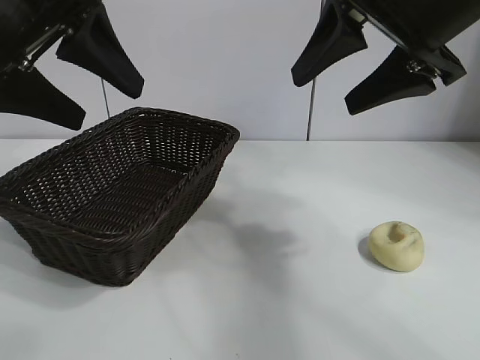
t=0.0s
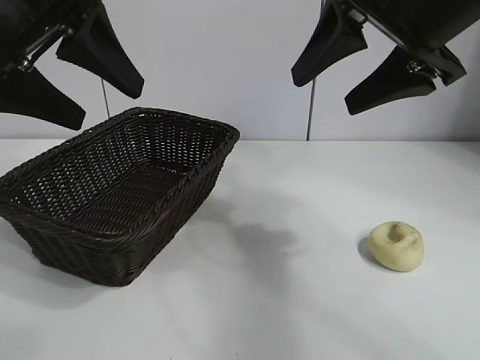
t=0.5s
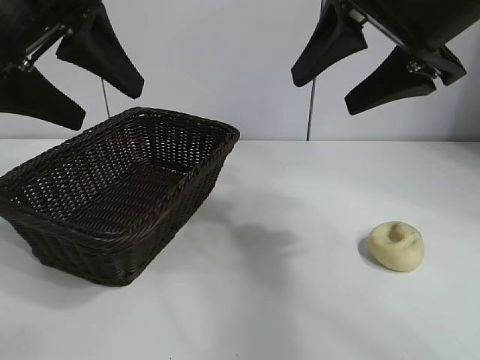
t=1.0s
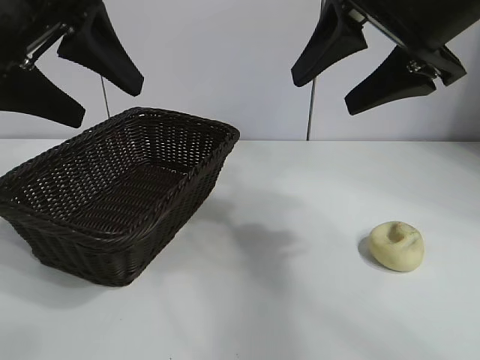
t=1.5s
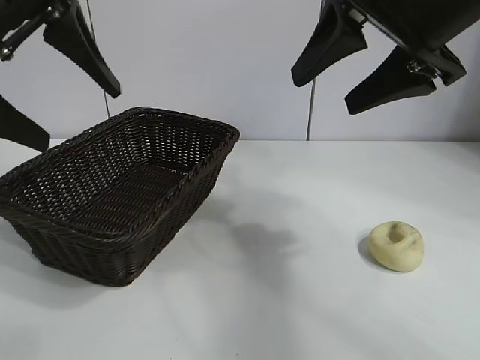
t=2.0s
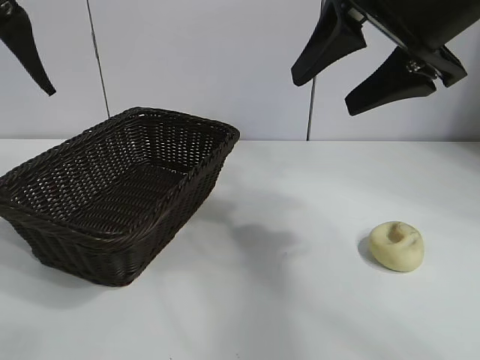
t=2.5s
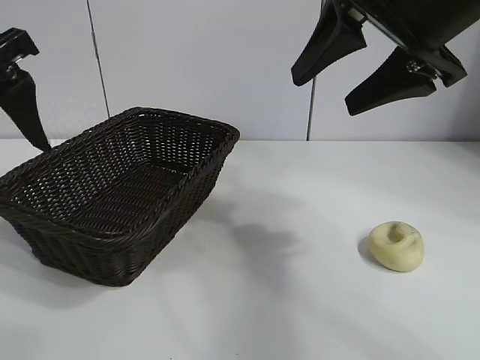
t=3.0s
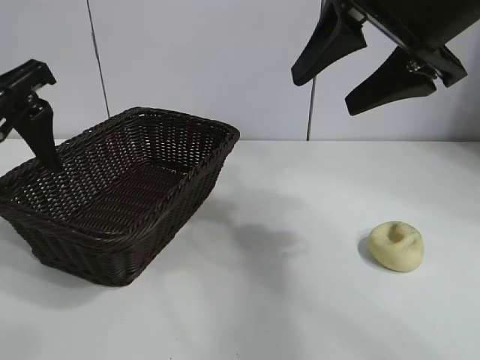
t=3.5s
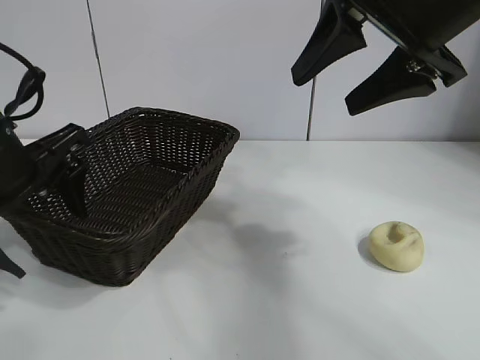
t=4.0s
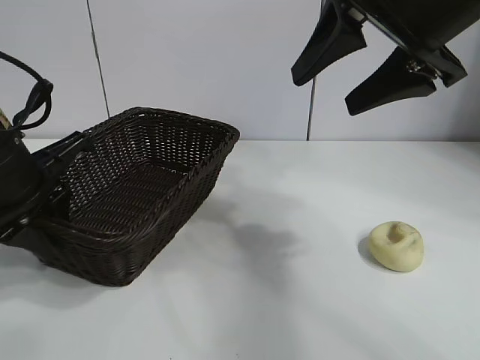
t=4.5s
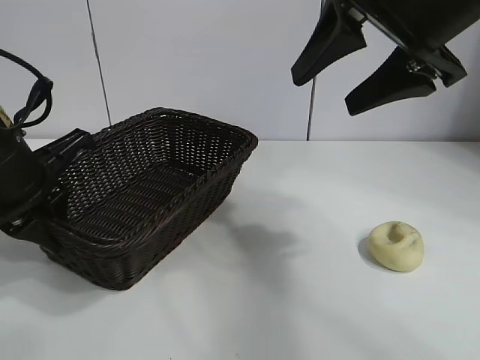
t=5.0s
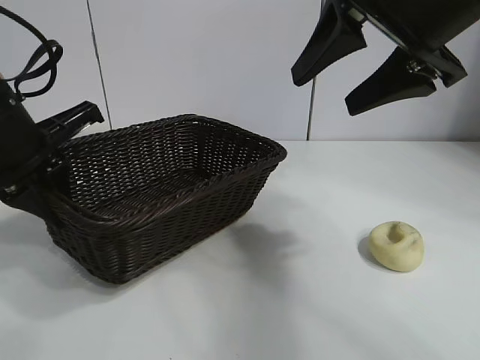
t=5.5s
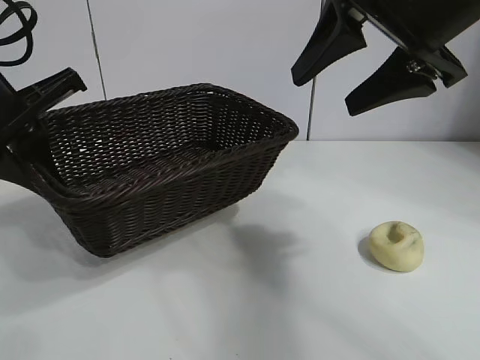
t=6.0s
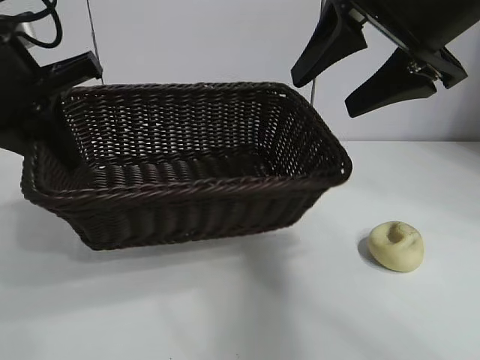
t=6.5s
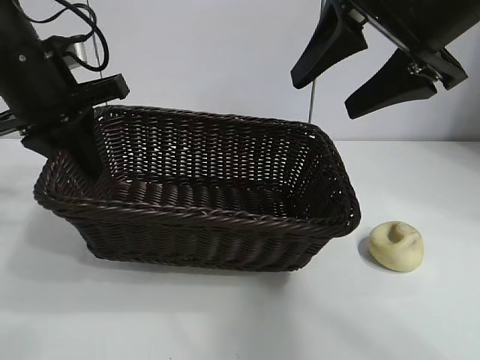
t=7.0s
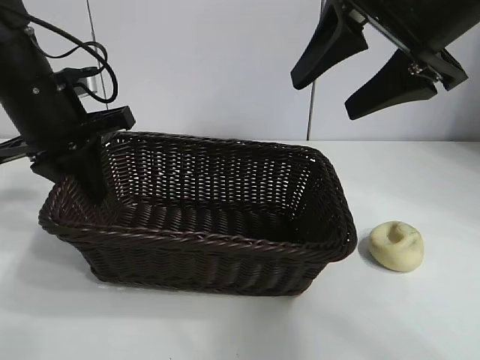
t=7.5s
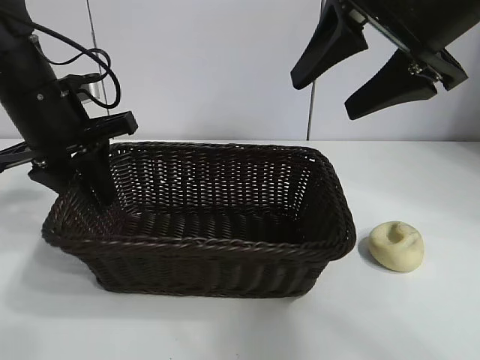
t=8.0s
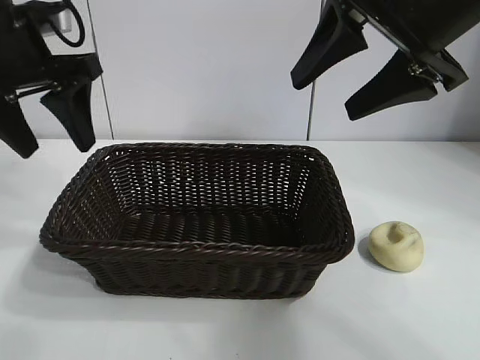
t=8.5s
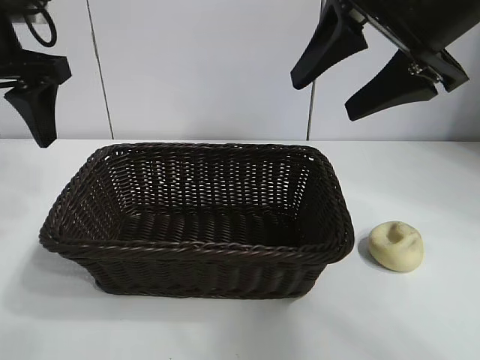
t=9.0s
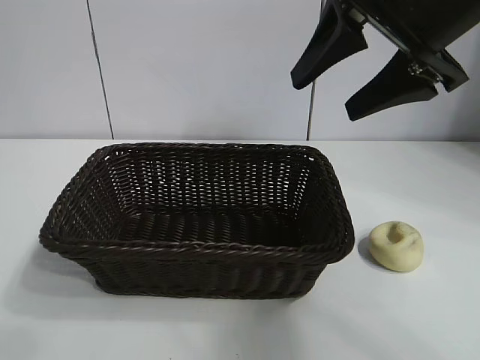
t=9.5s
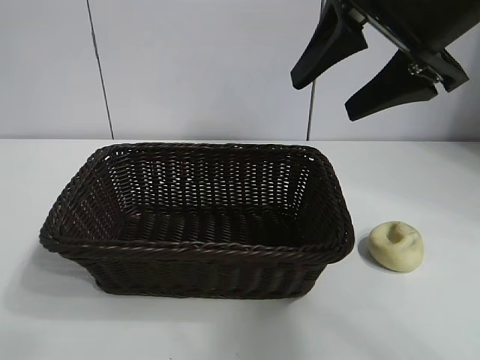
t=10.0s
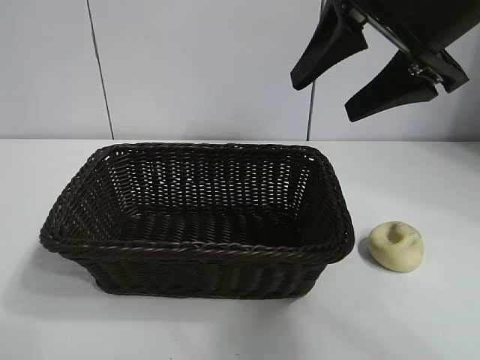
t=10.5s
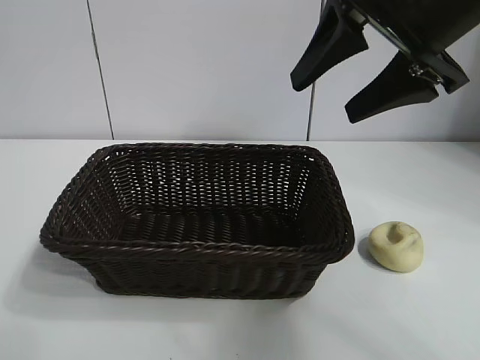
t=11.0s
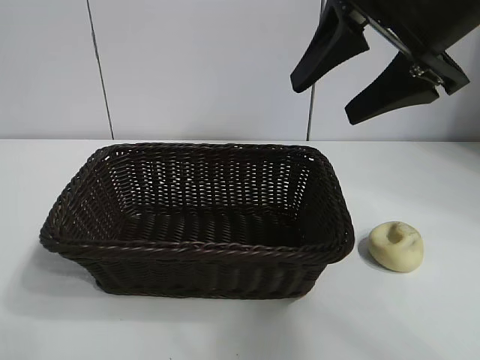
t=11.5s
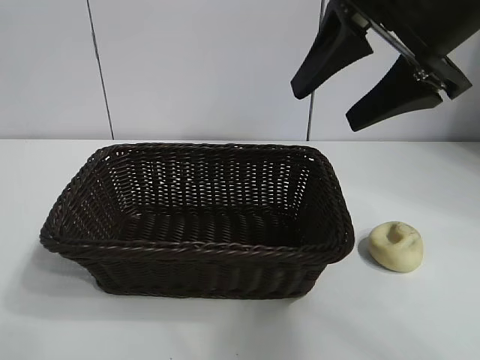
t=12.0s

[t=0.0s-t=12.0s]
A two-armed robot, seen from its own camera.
Task of the whole recording: pick up the egg yolk pastry and put it into the basket.
Step, t=1.5s to t=4.5s: Grasp the basket with left gripper.
Step, t=5.0s to t=8.0s: Place the basket in the center of view with left gripper.

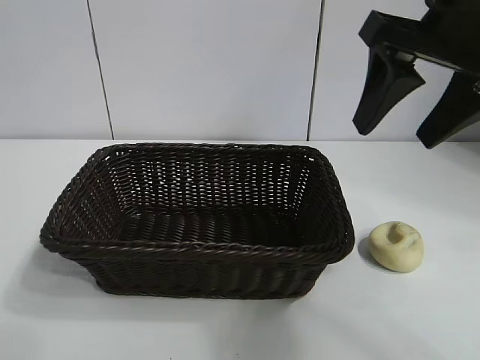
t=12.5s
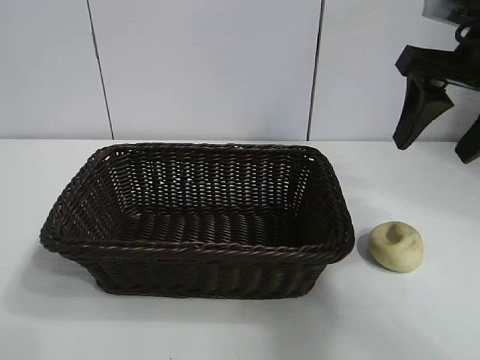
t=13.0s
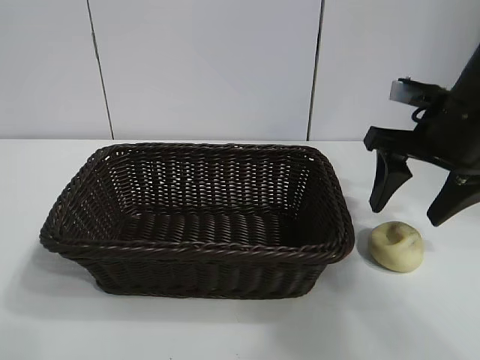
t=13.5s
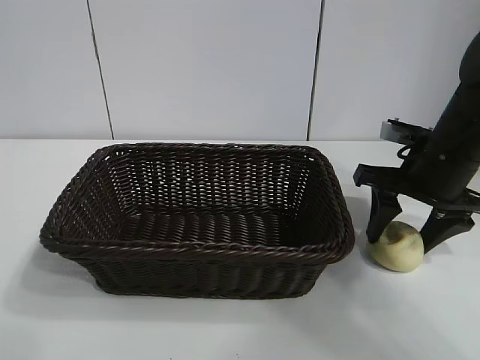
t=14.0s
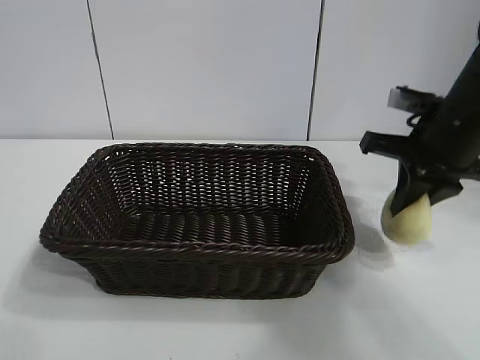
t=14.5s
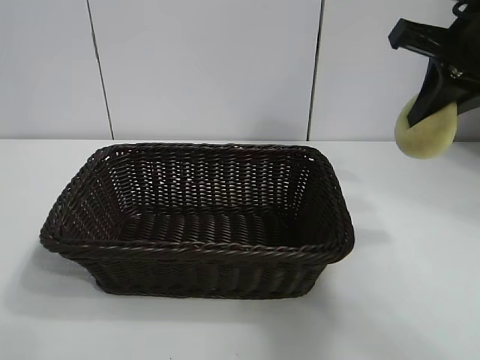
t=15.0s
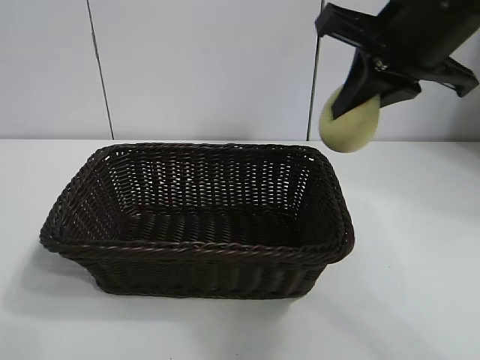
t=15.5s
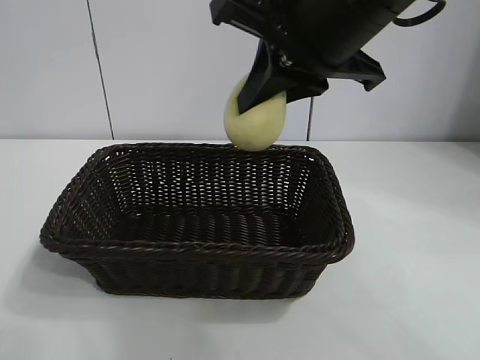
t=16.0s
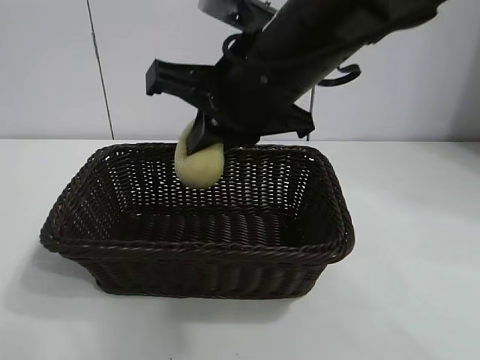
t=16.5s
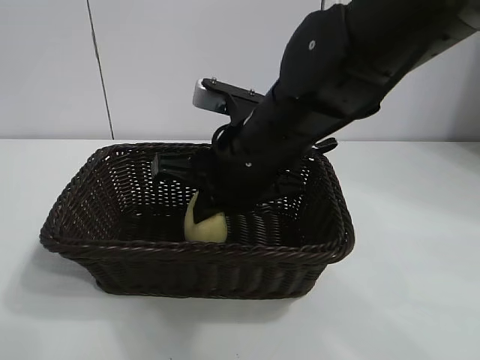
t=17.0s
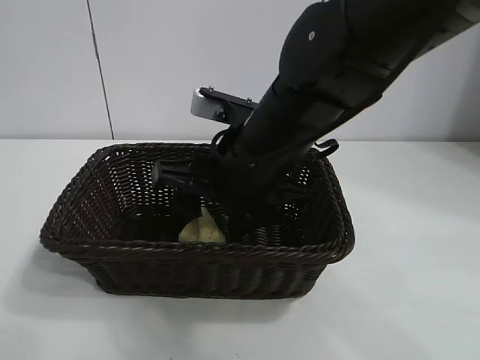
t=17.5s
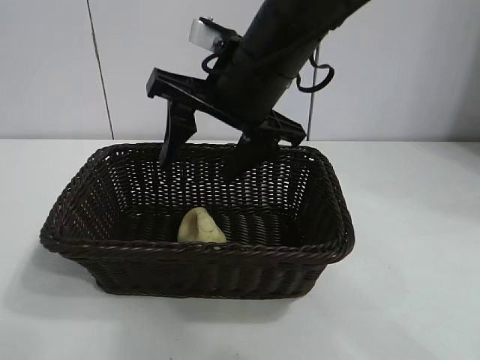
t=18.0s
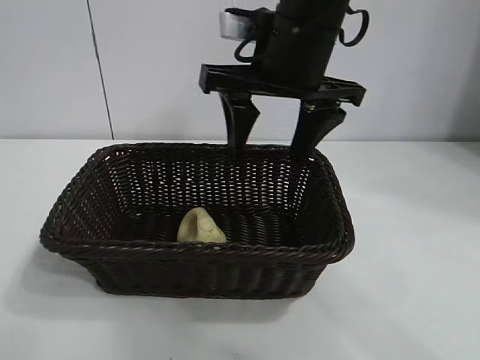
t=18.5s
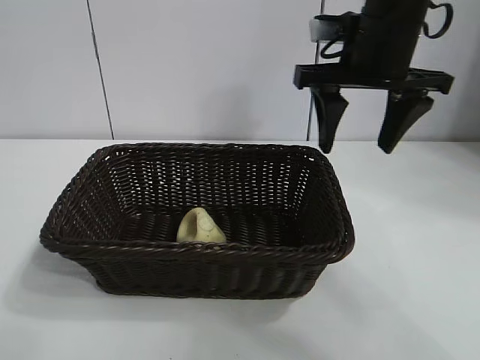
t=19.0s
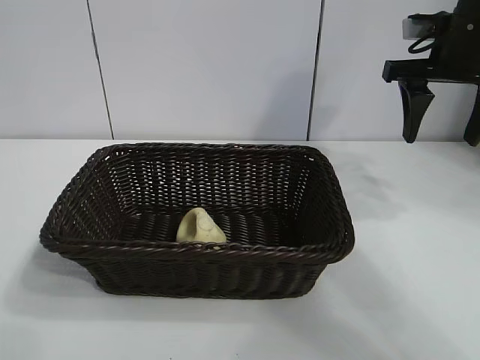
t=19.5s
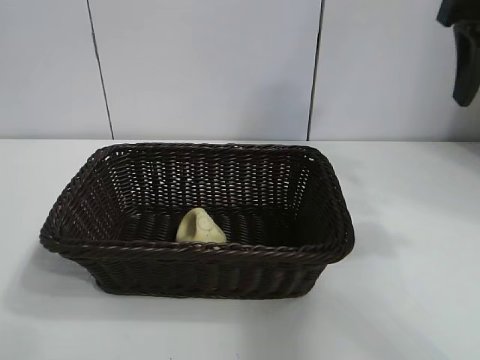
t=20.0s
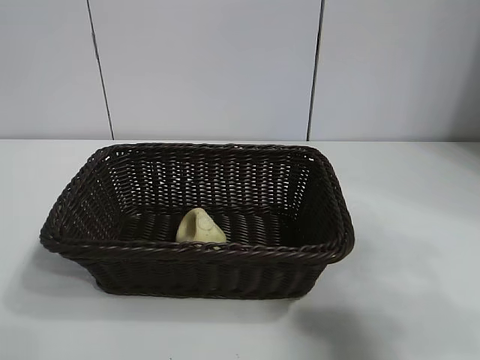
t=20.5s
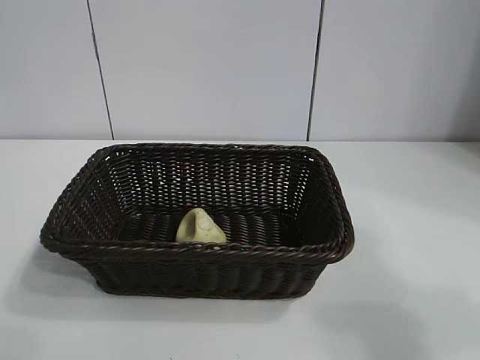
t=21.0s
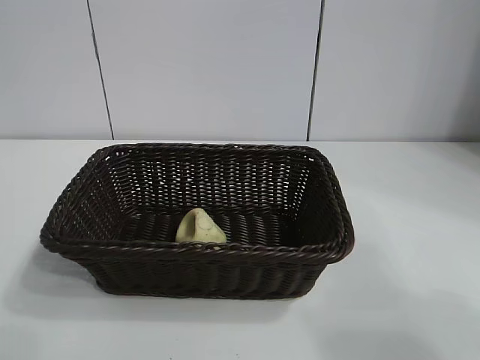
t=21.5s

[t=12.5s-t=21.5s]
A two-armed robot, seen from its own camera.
Task of the whole recording: pick up the egg yolk pastry and put it into the basket.
Step, t=14.5s to t=17.5s: Place the egg yolk pastry in the basket with right gripper.

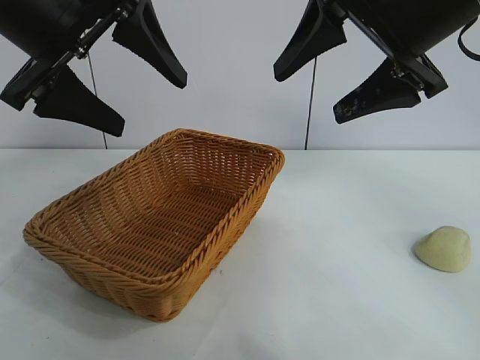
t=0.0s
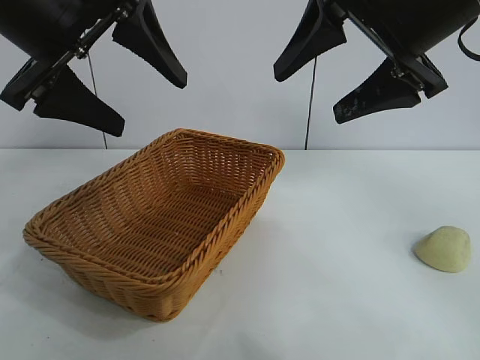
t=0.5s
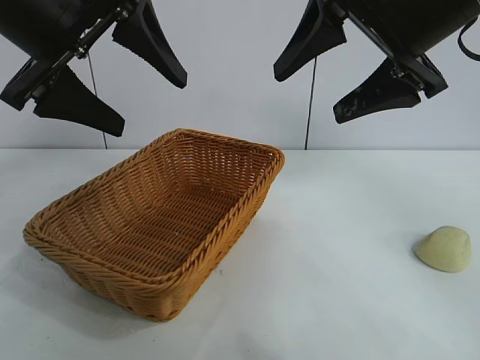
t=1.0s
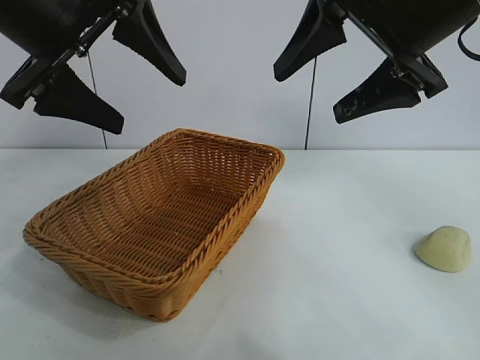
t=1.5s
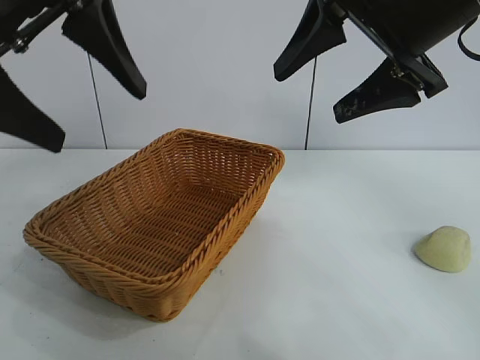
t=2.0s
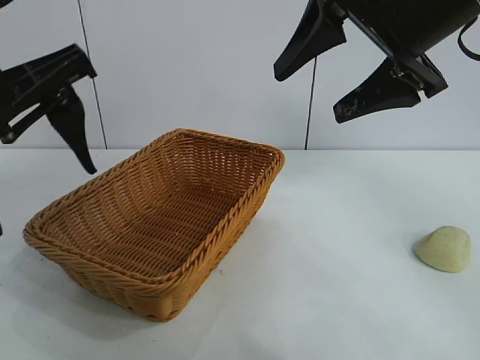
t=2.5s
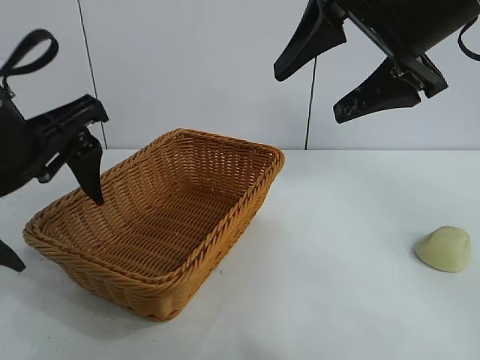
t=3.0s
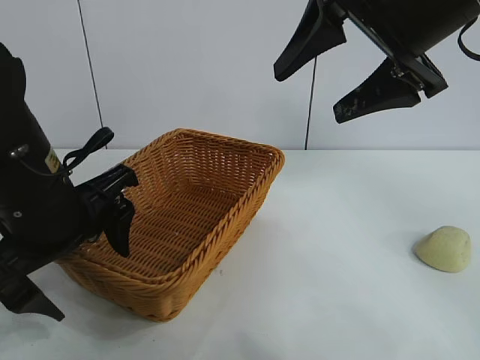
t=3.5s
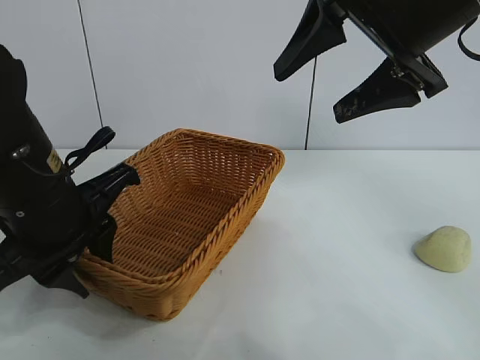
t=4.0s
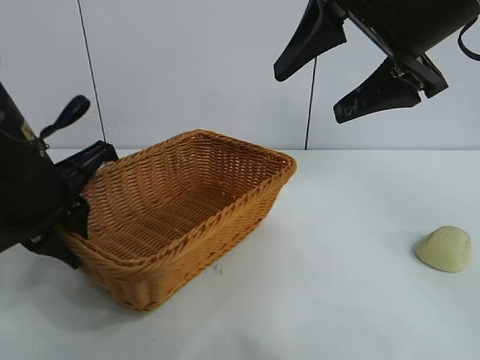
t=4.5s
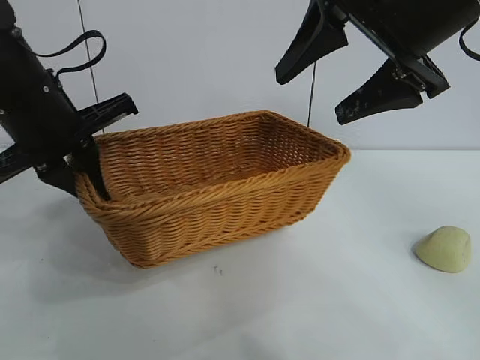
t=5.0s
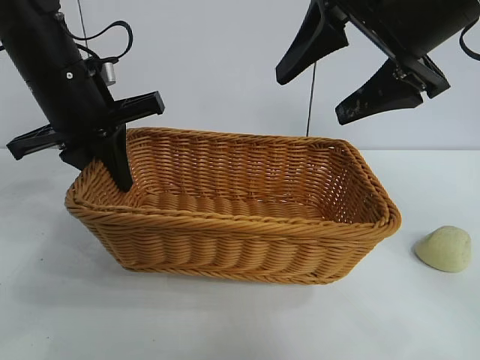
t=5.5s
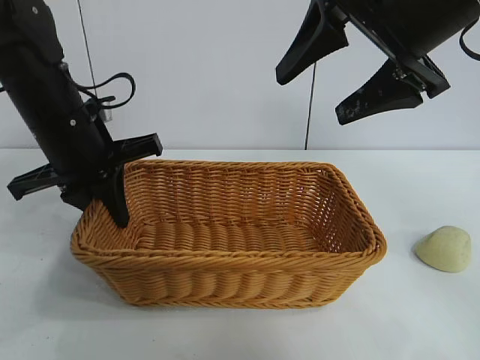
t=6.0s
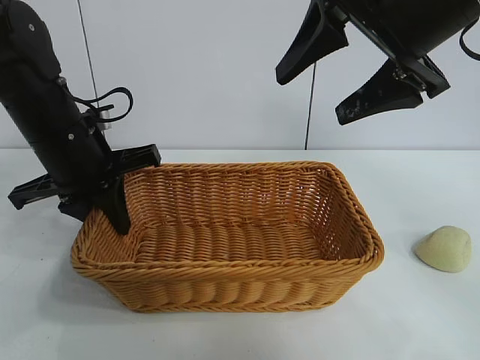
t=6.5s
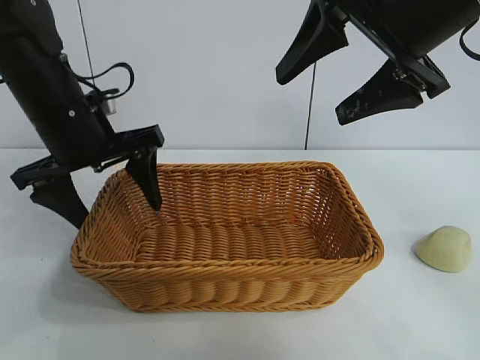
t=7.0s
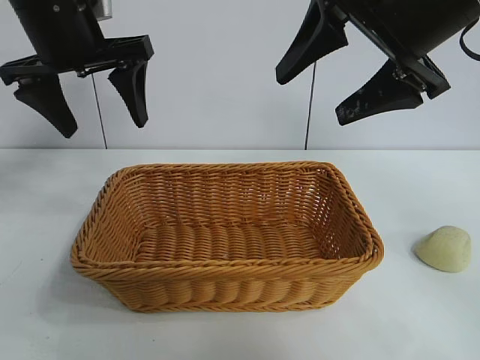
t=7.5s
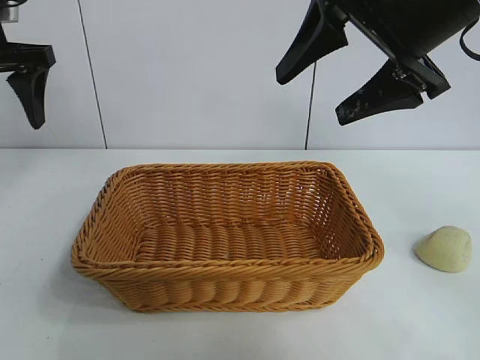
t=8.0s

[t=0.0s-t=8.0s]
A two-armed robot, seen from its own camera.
Task of the whole recording: pick up the egg yolk pastry and put it into the basket.
Step, t=1.5s to t=4.0s: Grasp the basket with left gripper.
Step, t=4.5s to t=6.5s: Place the basket in the center of view with left gripper.
